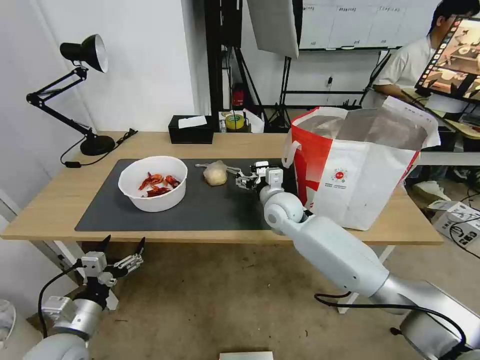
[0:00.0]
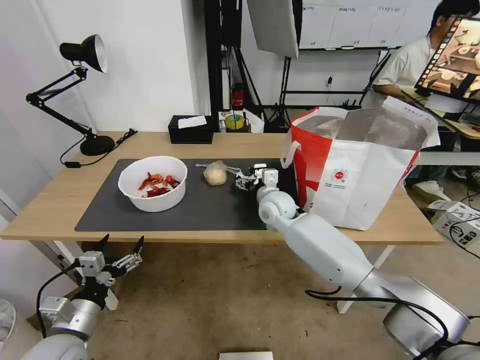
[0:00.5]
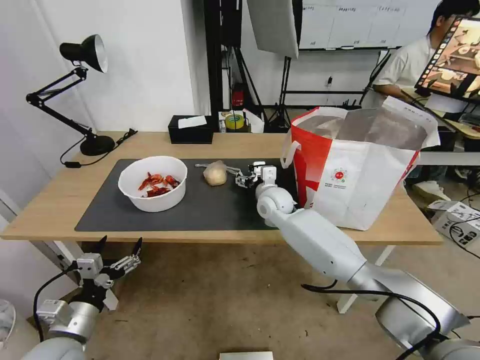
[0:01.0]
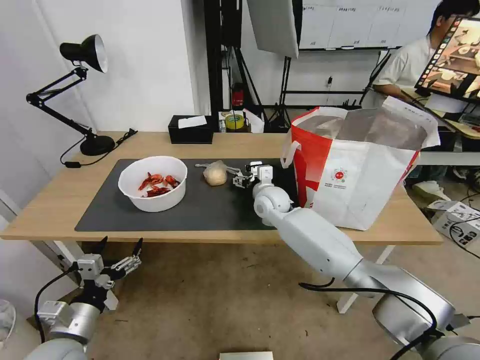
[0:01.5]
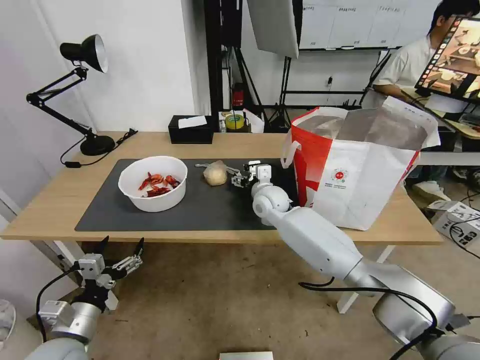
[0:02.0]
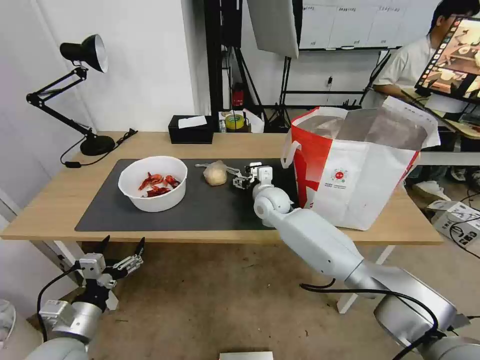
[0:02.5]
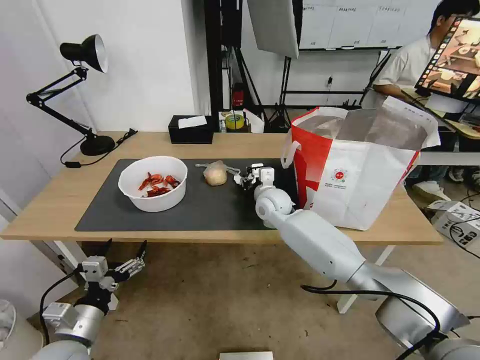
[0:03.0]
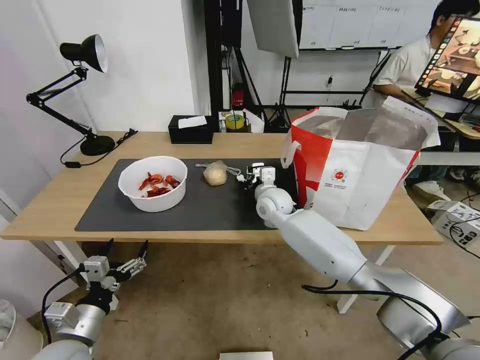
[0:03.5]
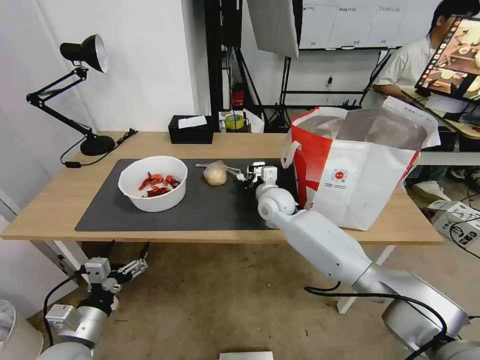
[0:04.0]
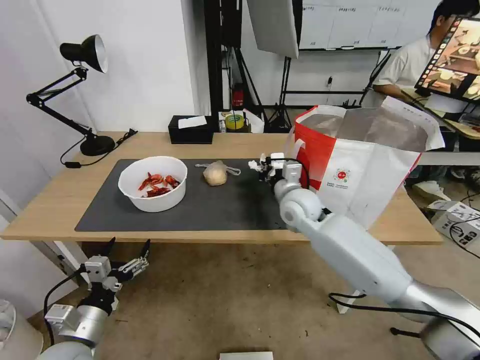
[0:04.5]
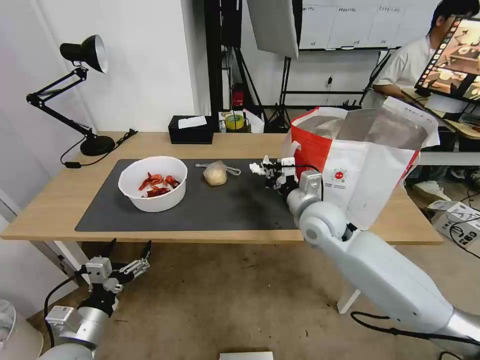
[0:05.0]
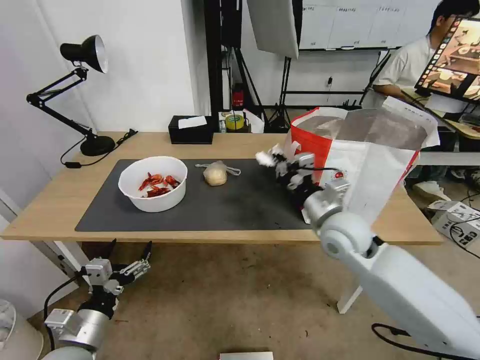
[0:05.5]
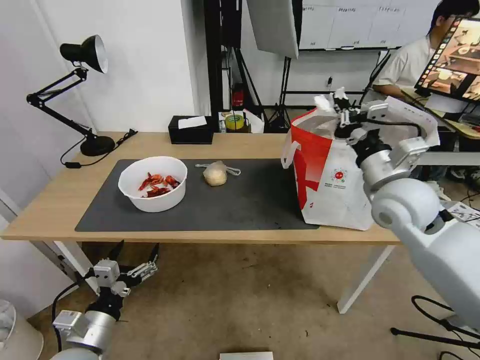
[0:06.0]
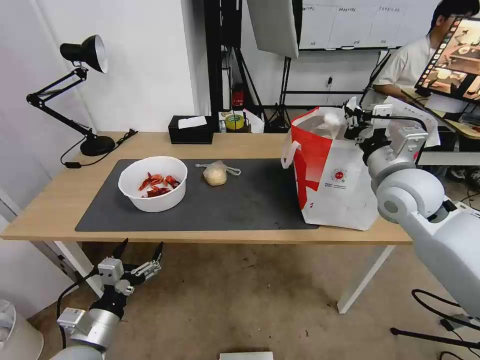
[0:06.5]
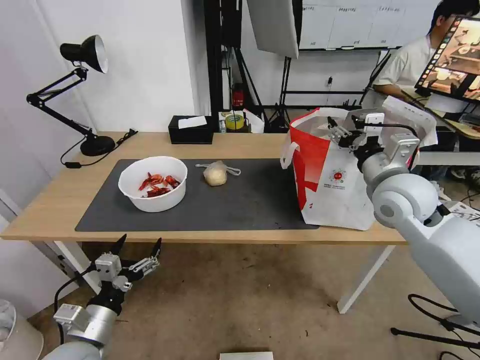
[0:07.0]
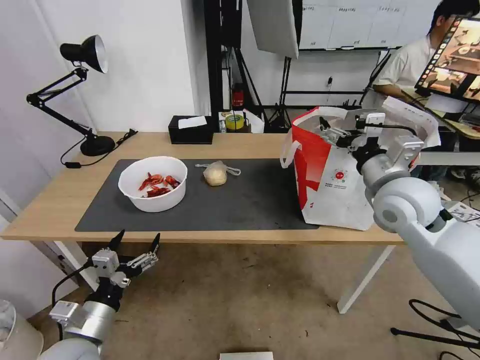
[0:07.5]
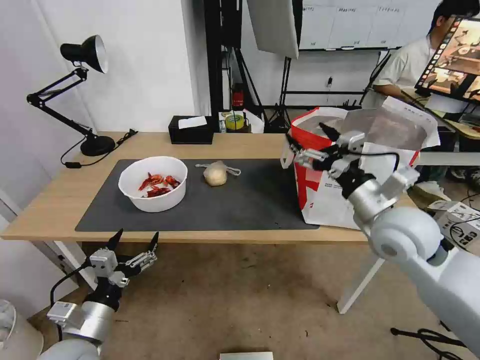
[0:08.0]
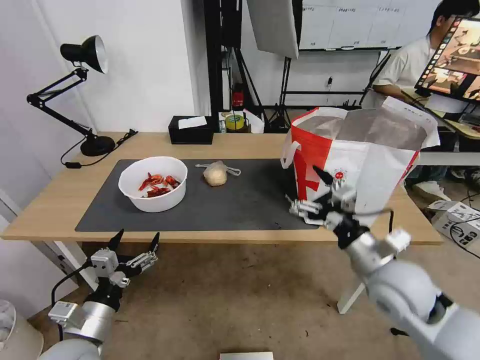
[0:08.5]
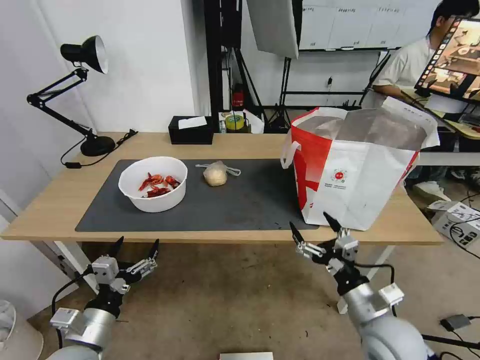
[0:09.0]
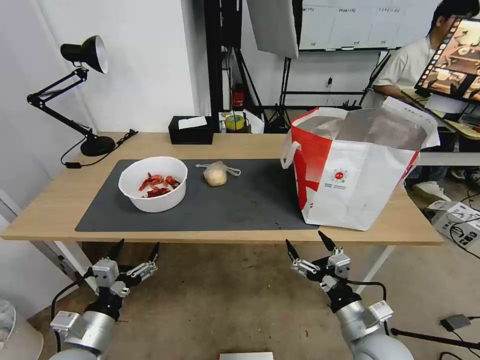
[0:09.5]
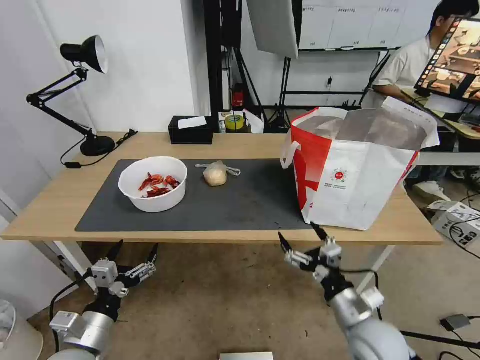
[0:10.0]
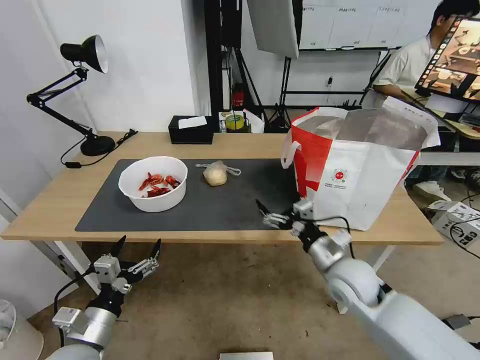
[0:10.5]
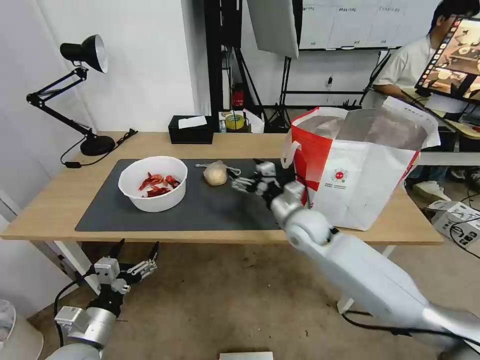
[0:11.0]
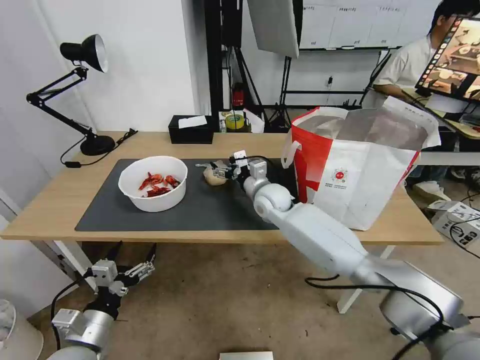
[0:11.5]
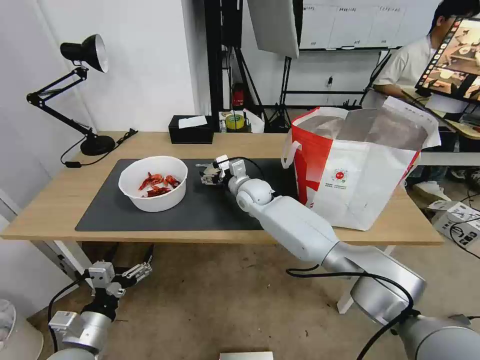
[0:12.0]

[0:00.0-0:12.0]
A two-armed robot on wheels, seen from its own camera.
Task of the whole recording: Pick up the trash from the table and place it into the takeout bag.
0:00.0 to 0:02.0: The right gripper heads forward, covering about 5 cm.
0:02.0 to 0:04.0: The right gripper closes.
0:04.0 to 0:06.0: The right gripper heads to the right, upward and backward, covering about 30 cm.
0:06.0 to 0:08.0: The right gripper ends up roughly 5 cm from where it was, and opens.
0:08.0 to 0:10.0: The right gripper heads downward and backward, covering approximately 25 cm.
0:10.0 to 0:12.0: The right gripper shifts approximately 40 cm forward and to the left.

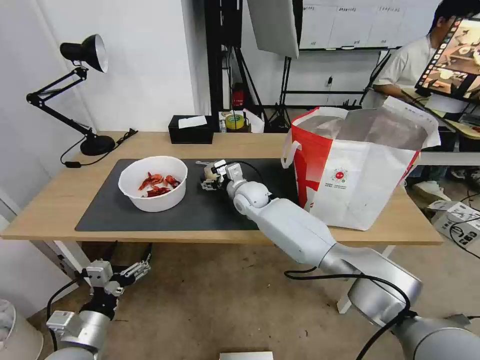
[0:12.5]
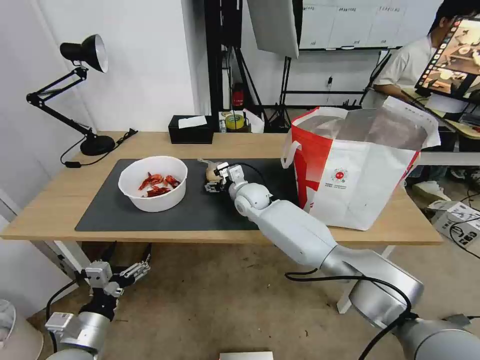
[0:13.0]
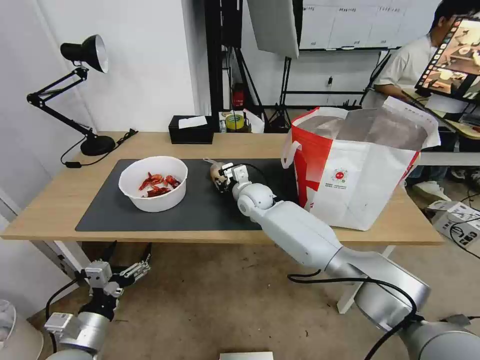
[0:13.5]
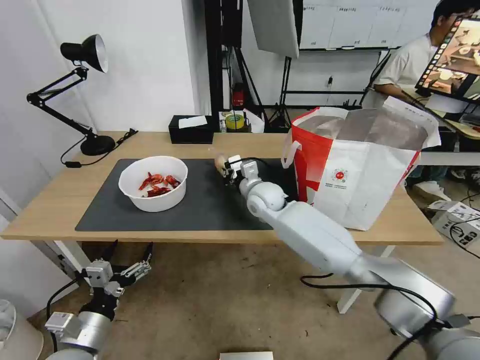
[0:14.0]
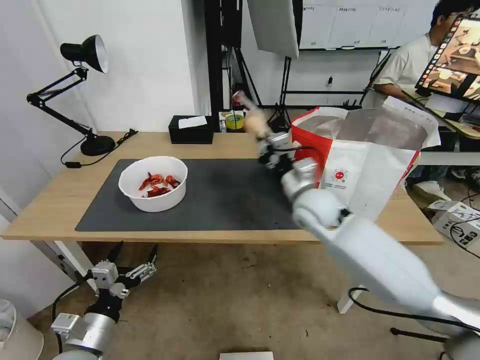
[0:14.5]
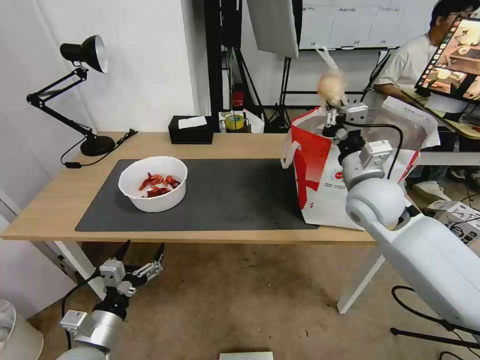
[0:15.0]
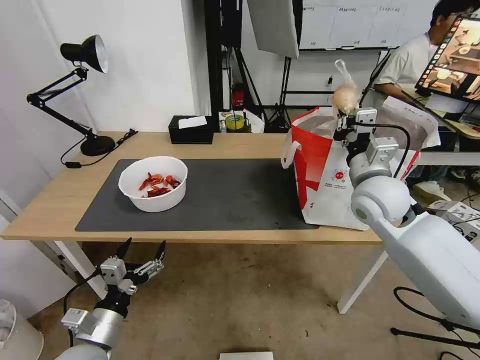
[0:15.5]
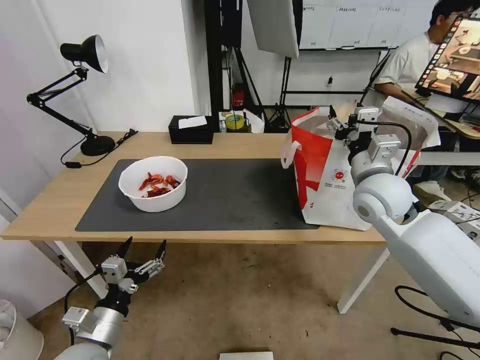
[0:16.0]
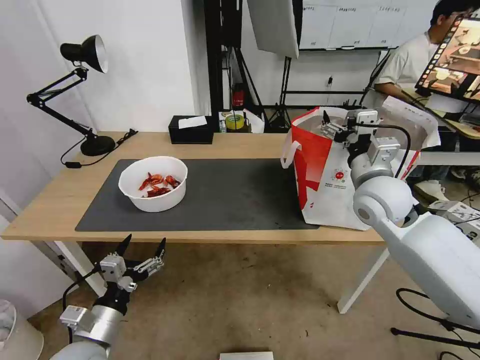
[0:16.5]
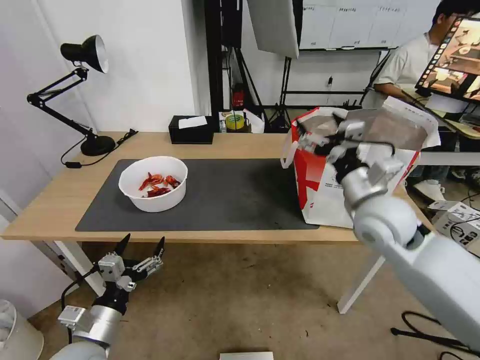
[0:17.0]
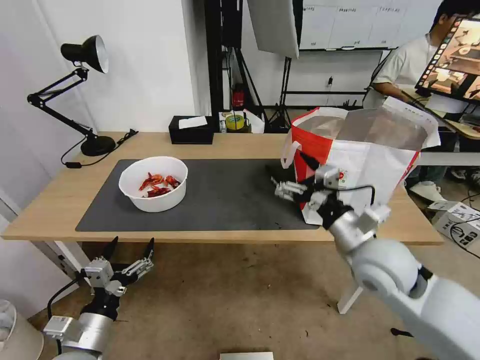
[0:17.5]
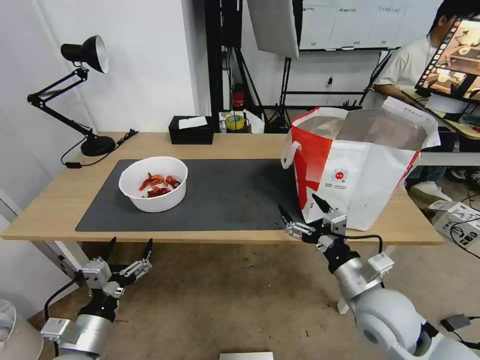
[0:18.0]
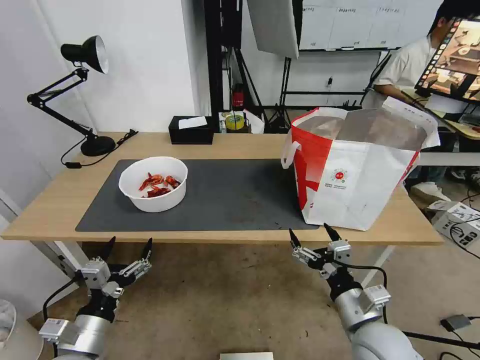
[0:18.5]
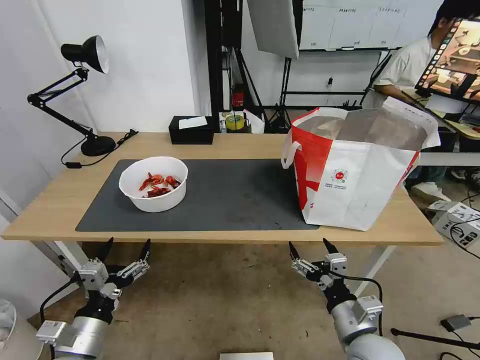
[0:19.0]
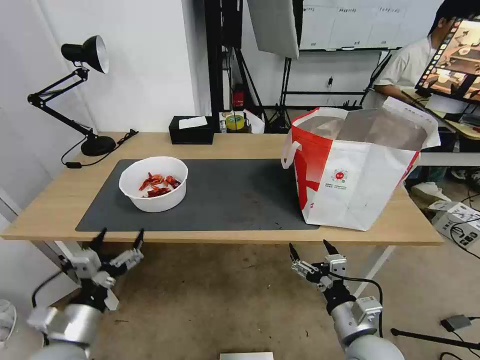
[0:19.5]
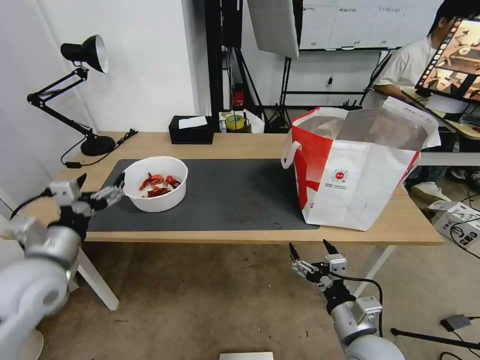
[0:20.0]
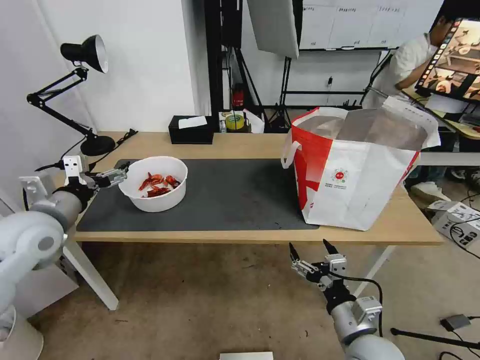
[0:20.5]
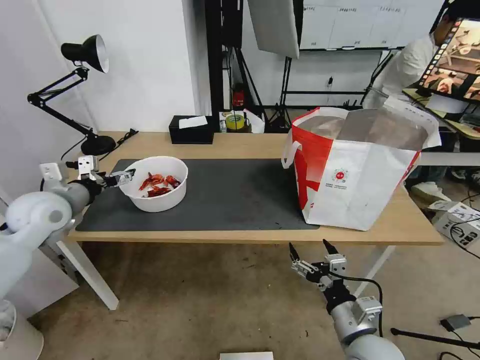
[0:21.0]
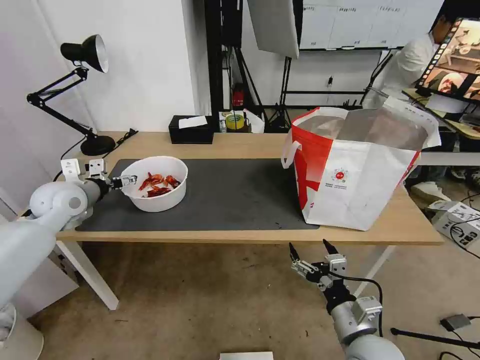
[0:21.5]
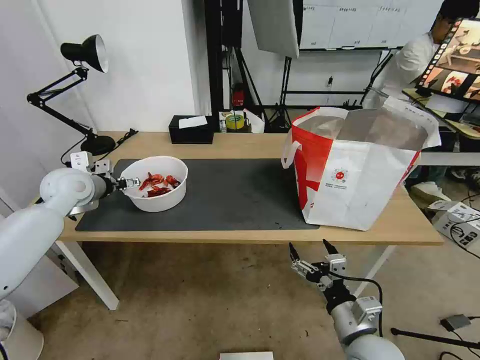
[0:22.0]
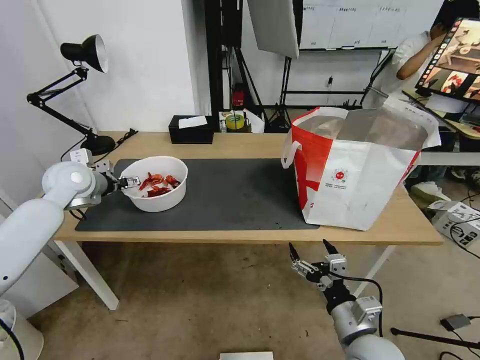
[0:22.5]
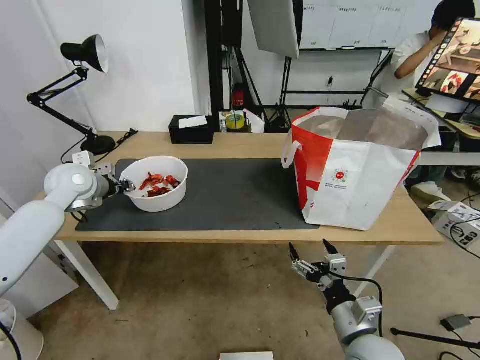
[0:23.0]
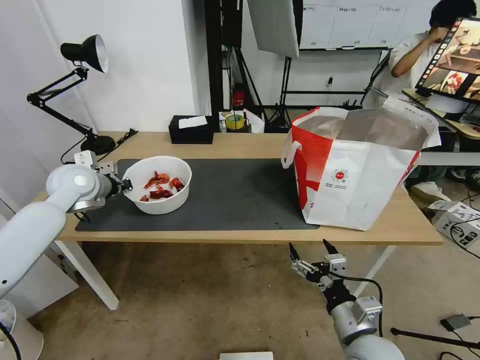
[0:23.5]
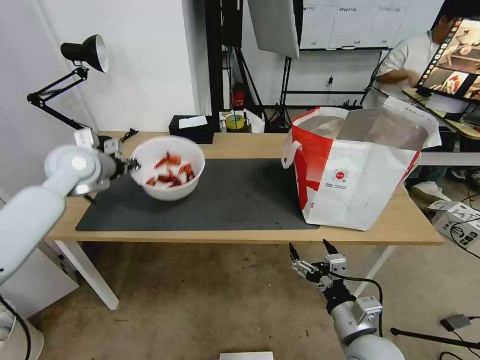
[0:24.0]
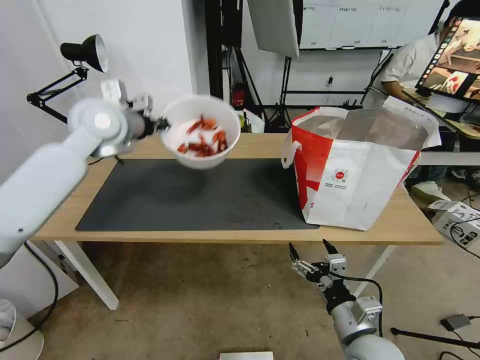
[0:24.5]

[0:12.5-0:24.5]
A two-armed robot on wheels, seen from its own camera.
Task of the whole recording: Pick up the trash from the table and place it into the takeout bag.
0:12.5 to 0:14.5: The right gripper heads to the right, backward and upward, covering about 20 cm, and closes up.
0:14.5 to 0:16.5: The right gripper goes some 10 cm to the right and upward, and opens.
0:16.5 to 0:18.5: The right gripper goes approximately 30 cm backward and downward.
0:18.5 to 0:20.5: The left gripper shifts about 25 cm forward, upward and to the left.
0:20.5 to 0:22.5: The left gripper heads forward, covering approximately 15 cm.
0:22.5 to 0:24.5: The left gripper moves upward and to the right, approximately 15 cm, and closes up.

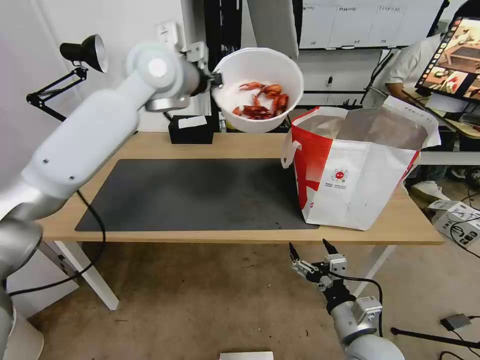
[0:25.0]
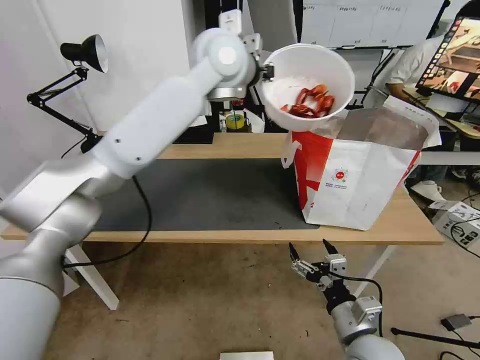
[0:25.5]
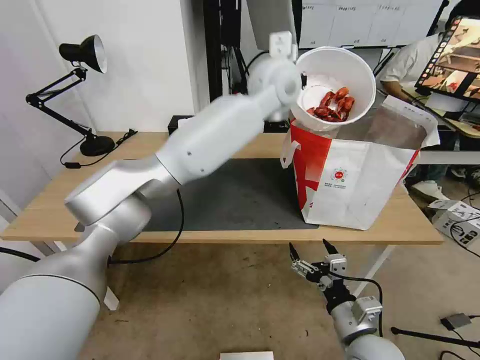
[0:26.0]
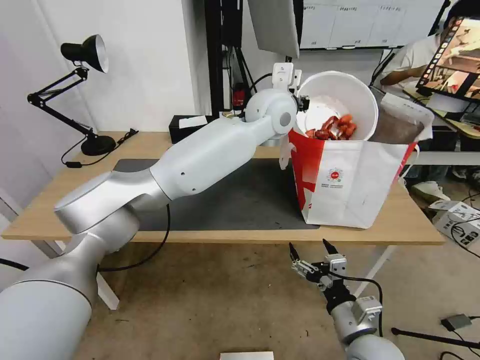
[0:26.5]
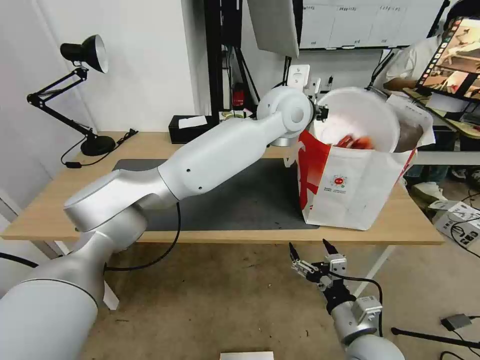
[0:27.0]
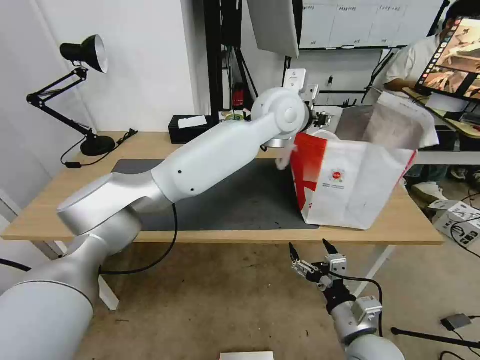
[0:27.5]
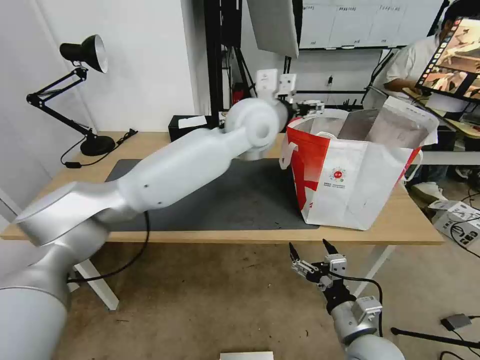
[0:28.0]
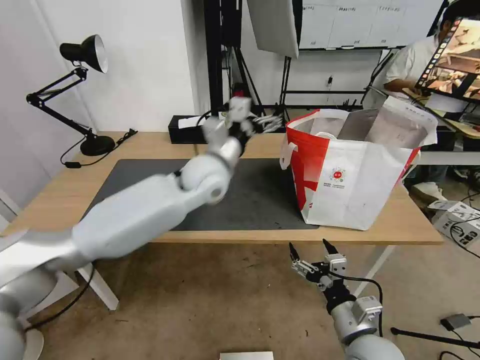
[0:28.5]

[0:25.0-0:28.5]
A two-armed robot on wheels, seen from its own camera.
Task of the whole recording: Pick up the trash from the table and place it into the takeout bag.
0:25.0 to 0:27.0: The left gripper travels to the right by some 25 cm.
0:27.0 to 0:28.5: The left gripper shifts roughly 20 cm to the left and downward, and opens its fingers.
